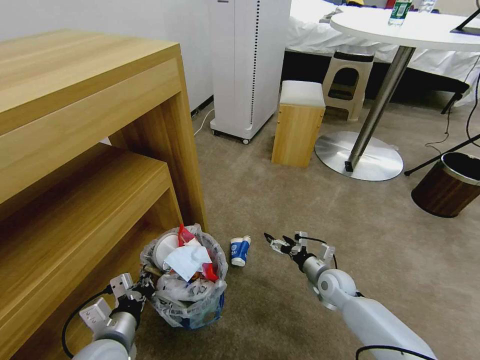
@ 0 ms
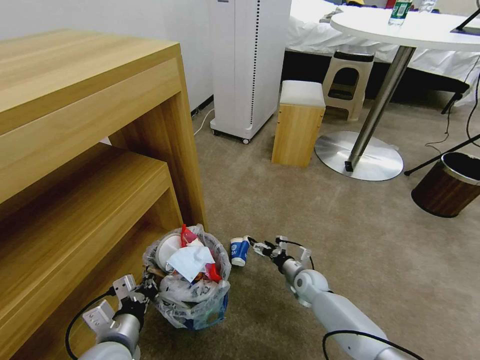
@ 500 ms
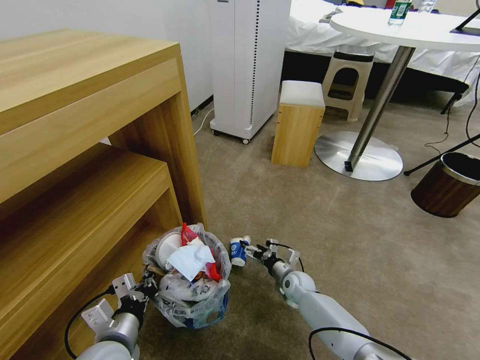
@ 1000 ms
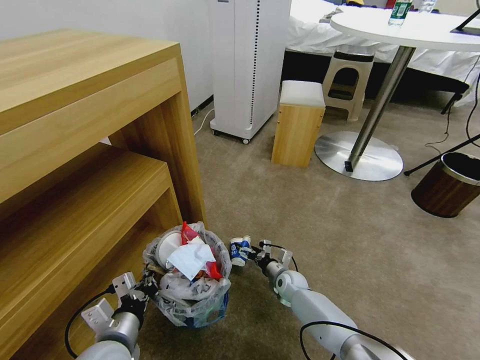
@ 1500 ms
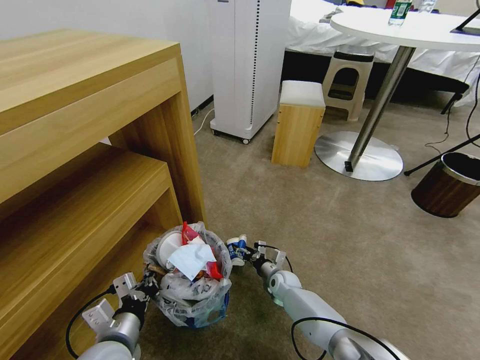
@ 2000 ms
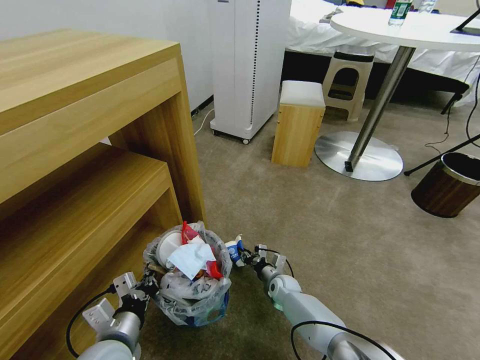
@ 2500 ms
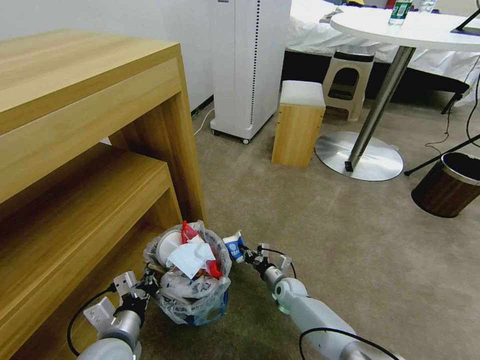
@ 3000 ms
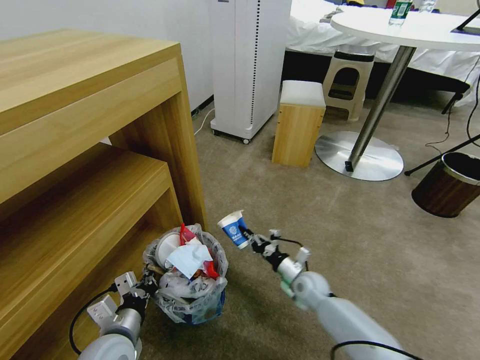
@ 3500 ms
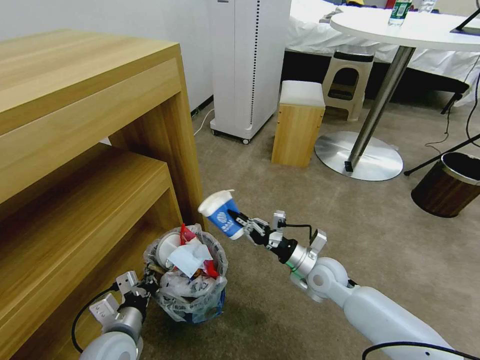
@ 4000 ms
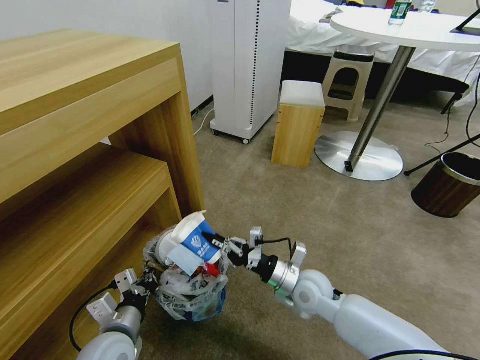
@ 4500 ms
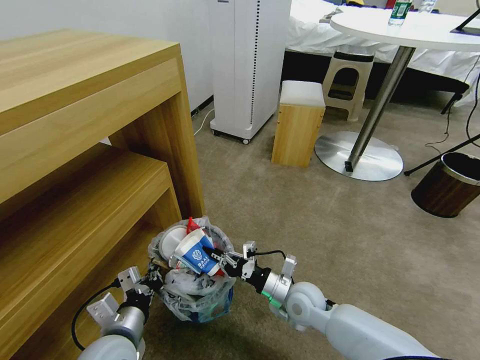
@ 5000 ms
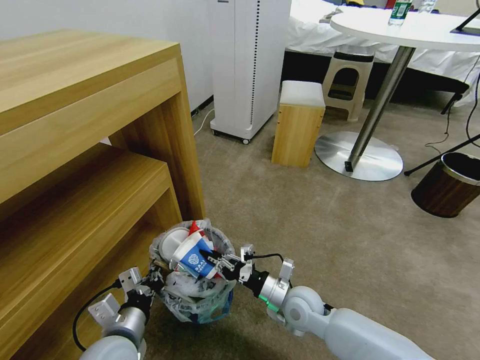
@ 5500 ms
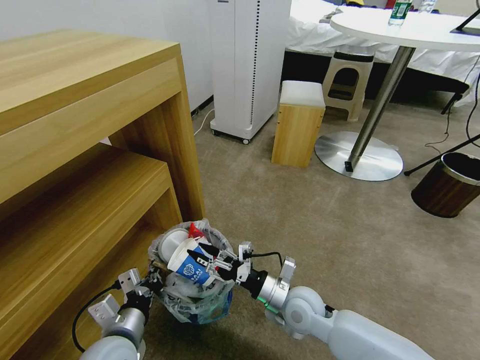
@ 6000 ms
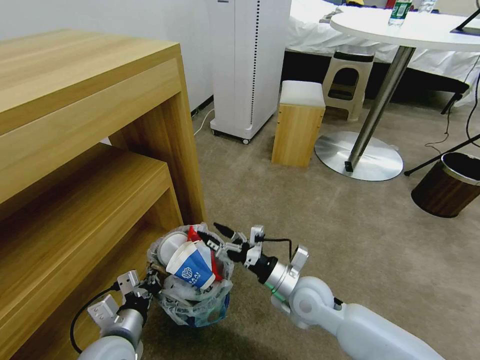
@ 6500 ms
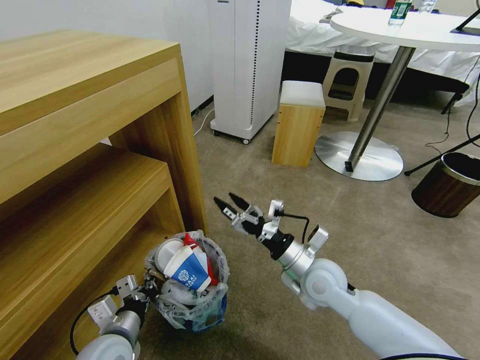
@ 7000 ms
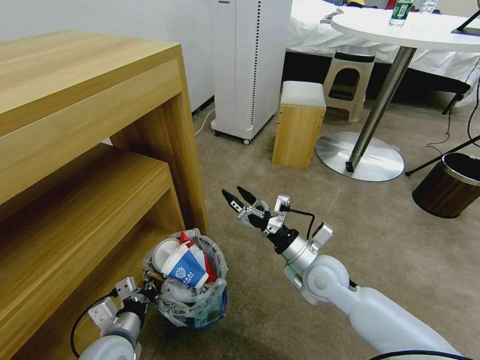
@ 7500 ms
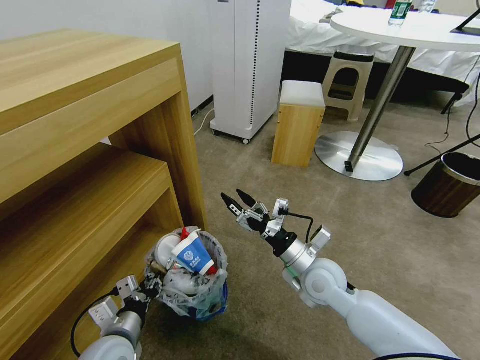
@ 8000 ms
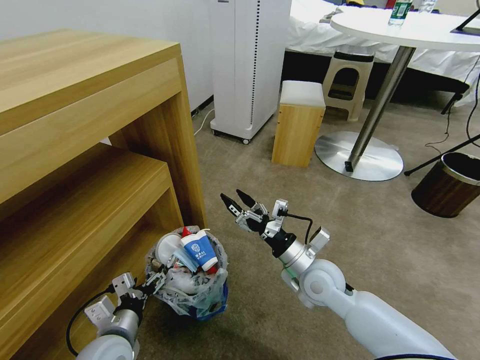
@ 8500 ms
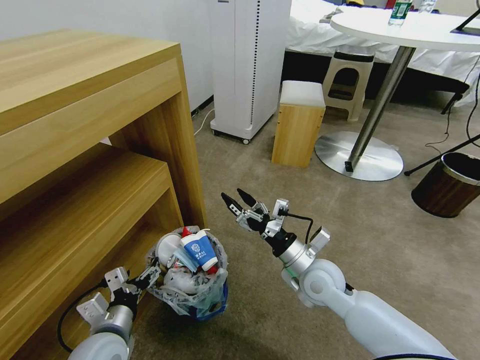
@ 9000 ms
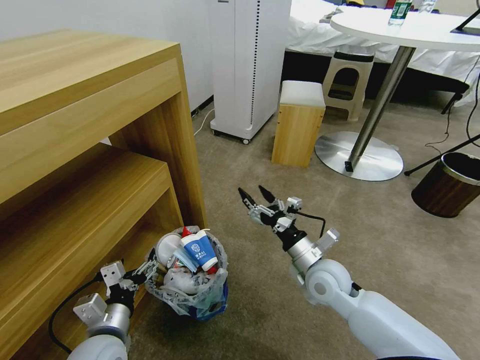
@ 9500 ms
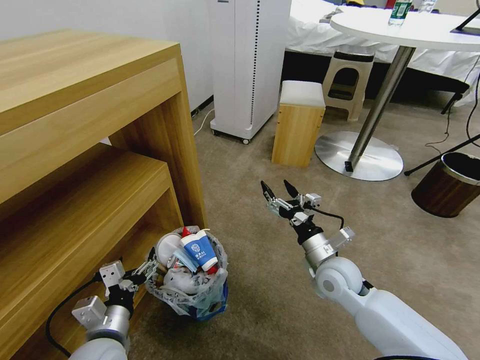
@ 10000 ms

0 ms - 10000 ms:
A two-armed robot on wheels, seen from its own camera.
Task of the whole recording: Pick up the trash bin and place the garbage on the floor into it.
0 ms - 2000 ms: The right gripper shifts about 15 cm to the left and downward.
2000 ms - 4000 ms: The right gripper travels upward by approximately 20 cm, and closes its fingers.
4000 ms - 6000 ms: The right gripper travels to the left and backward by approximately 10 cm, and opens up.
6000 ms - 8000 ms: The left gripper opens, while the right gripper is displaced upward by approximately 5 cm.
8000 ms - 10000 ms: The left gripper opens its fingers.

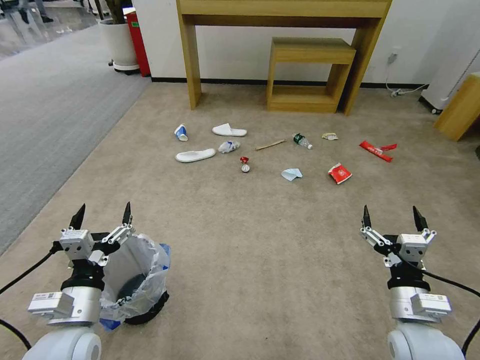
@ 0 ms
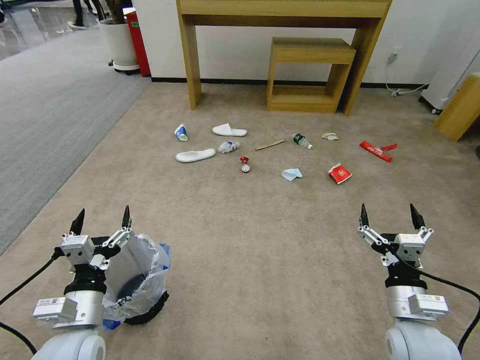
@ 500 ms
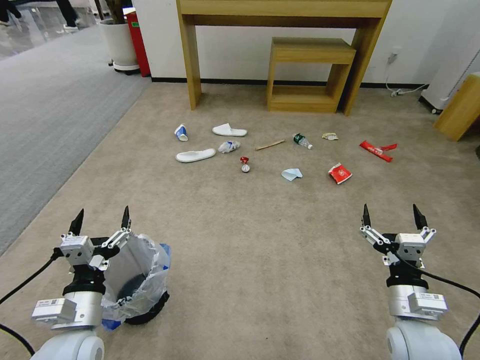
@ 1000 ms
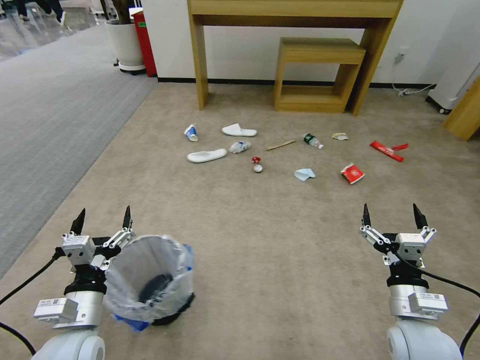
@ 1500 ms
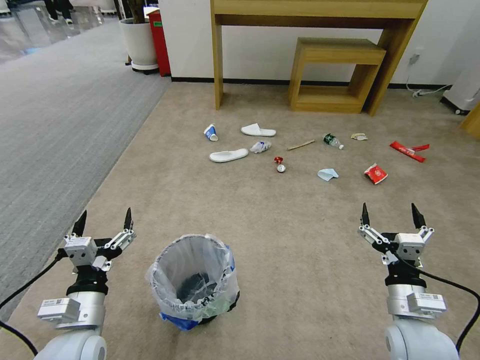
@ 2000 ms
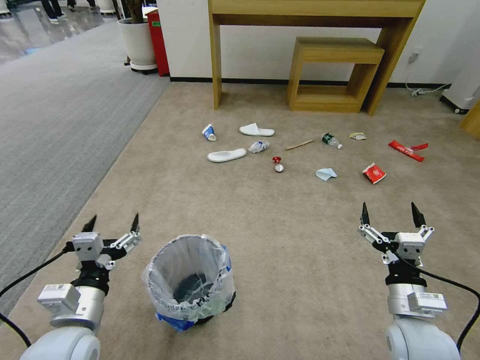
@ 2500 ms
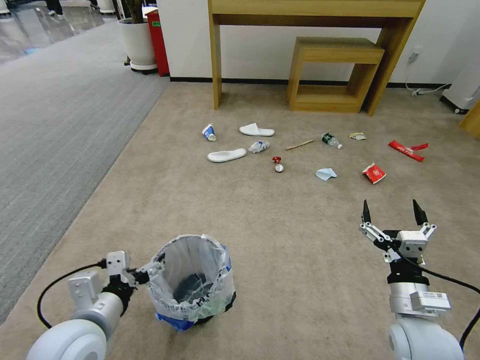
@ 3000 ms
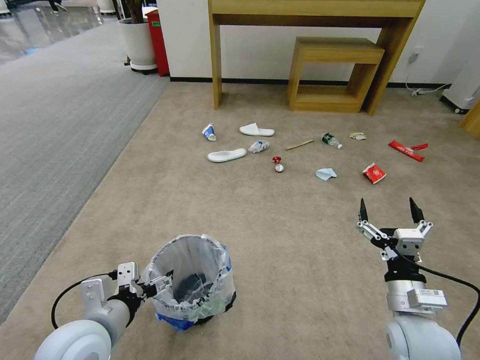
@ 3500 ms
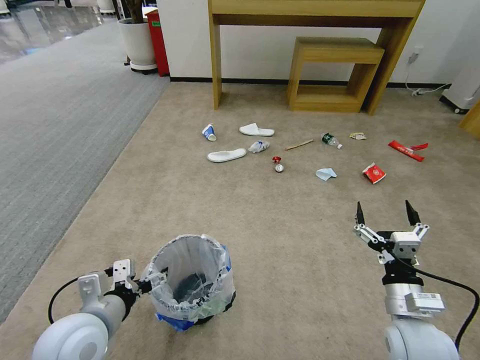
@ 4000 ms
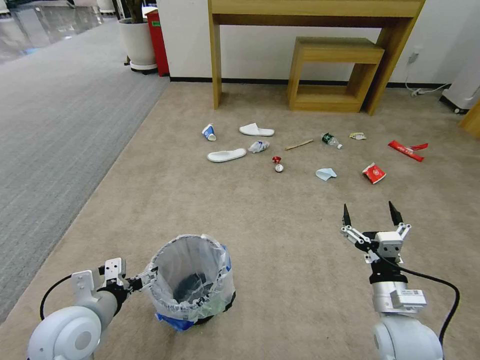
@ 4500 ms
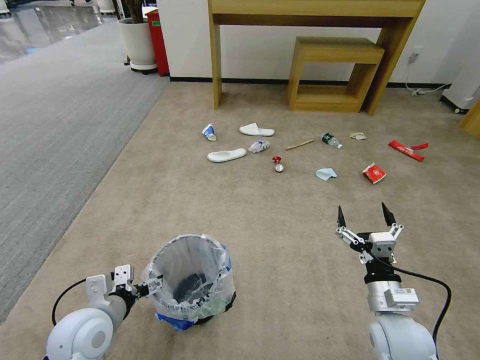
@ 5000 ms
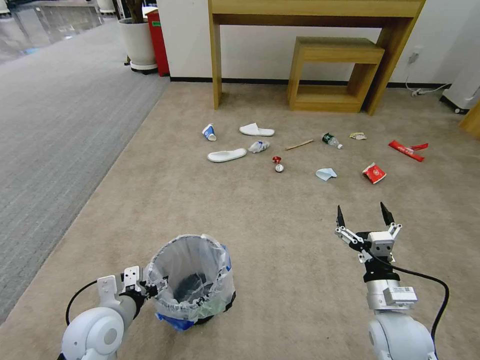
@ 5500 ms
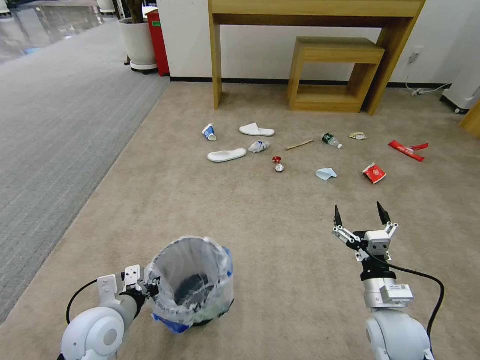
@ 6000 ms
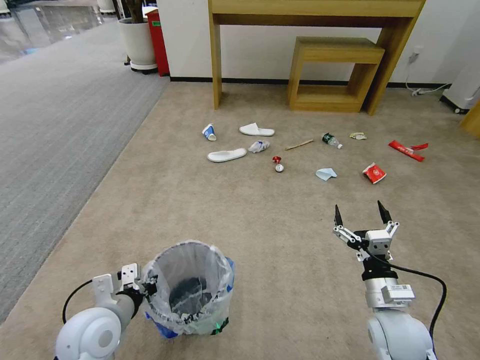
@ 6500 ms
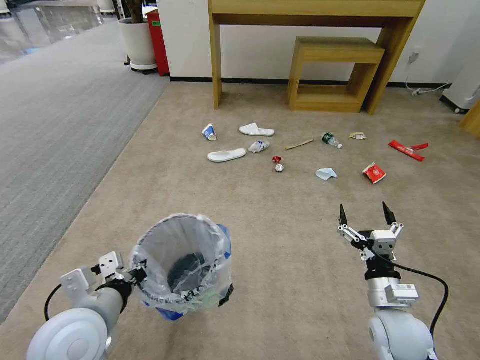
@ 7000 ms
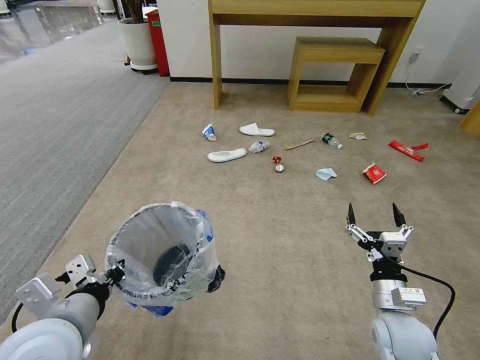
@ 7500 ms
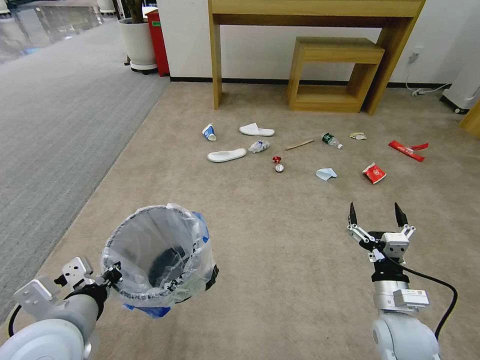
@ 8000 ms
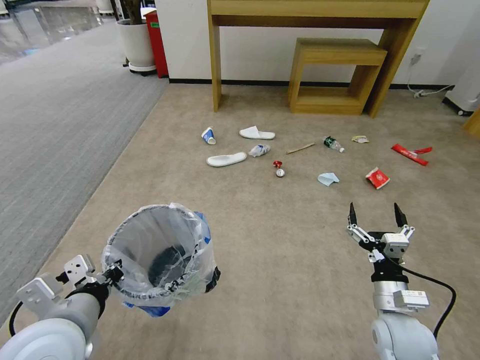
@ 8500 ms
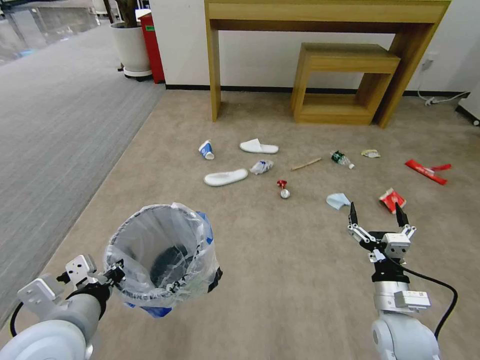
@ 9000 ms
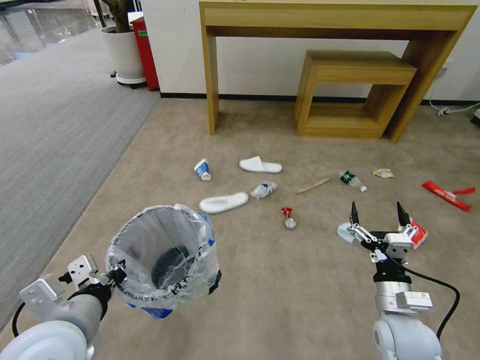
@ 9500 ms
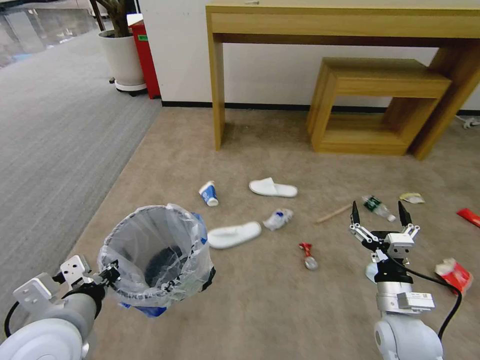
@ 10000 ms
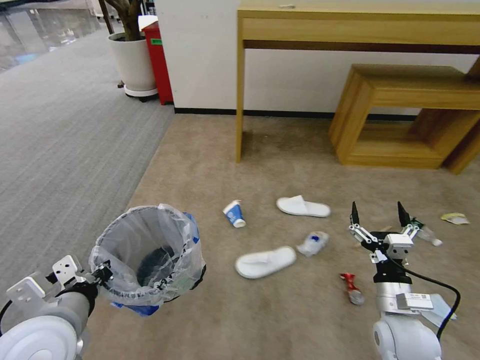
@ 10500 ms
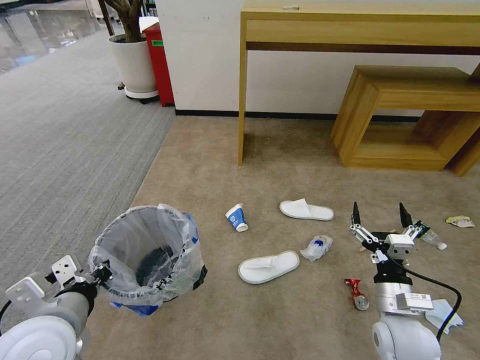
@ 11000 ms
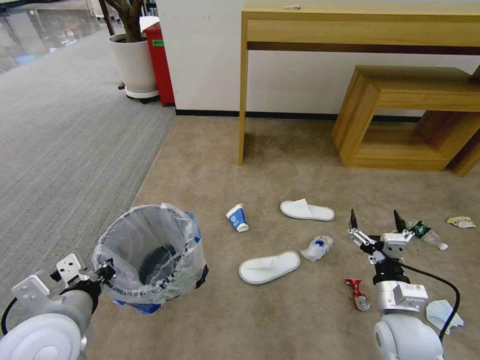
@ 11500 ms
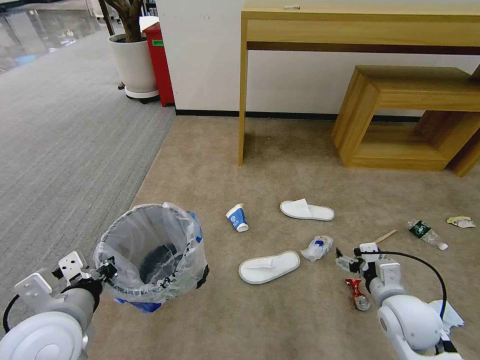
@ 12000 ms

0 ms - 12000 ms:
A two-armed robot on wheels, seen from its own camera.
Task of the whole recording: Pick up the trash bin and place the garbage on the floor into it.
4000 ms - 6000 ms: The left gripper goes approximately 5 cm downward, and closes its fingers.
6000 ms - 8000 ms: The left gripper travels upward and backward by approximately 15 cm.

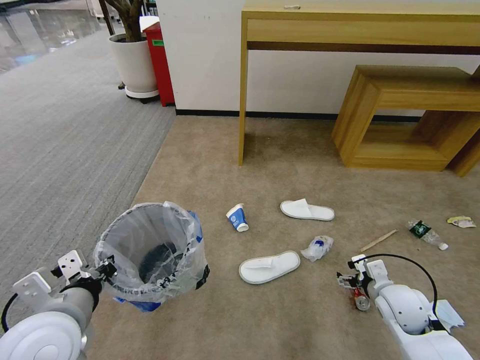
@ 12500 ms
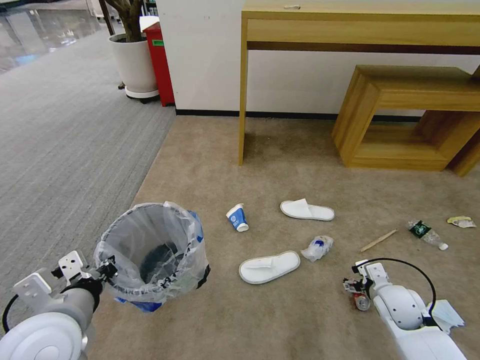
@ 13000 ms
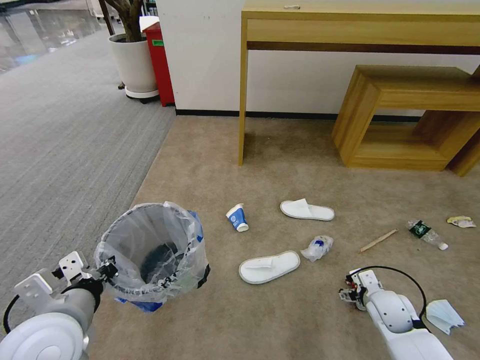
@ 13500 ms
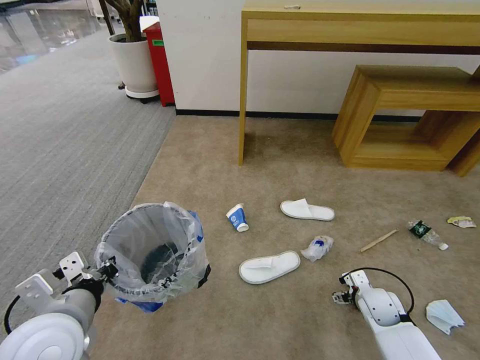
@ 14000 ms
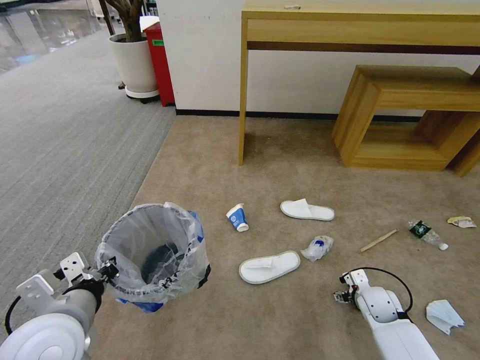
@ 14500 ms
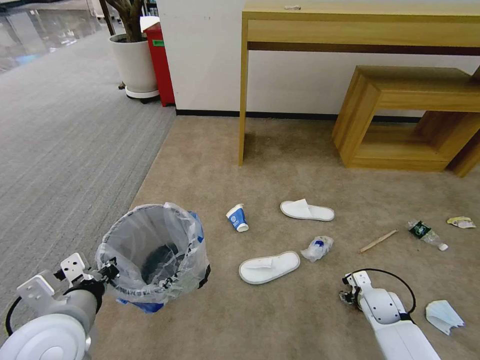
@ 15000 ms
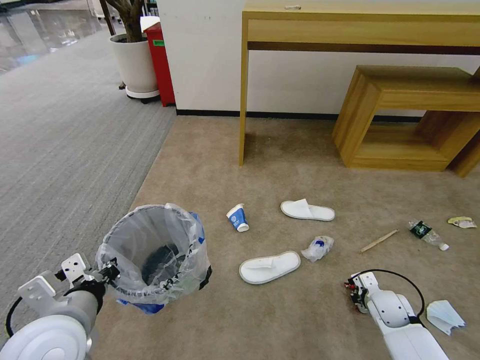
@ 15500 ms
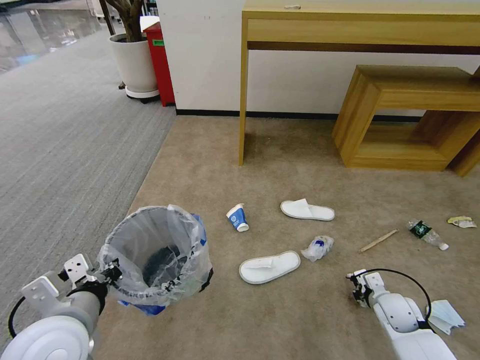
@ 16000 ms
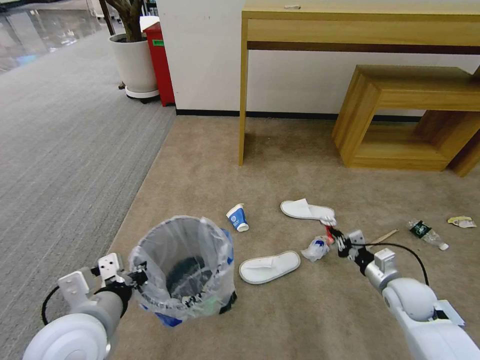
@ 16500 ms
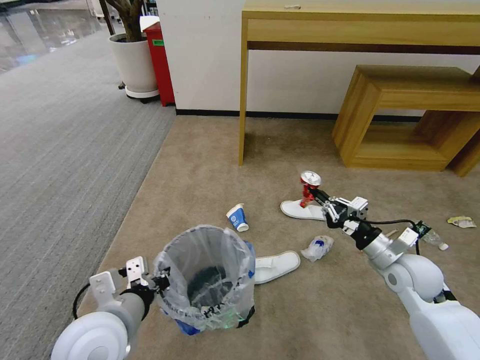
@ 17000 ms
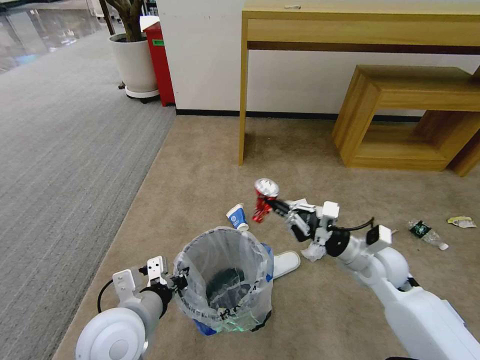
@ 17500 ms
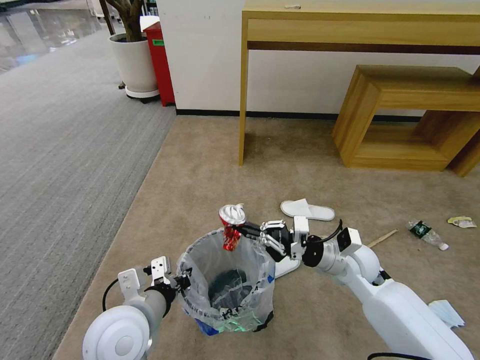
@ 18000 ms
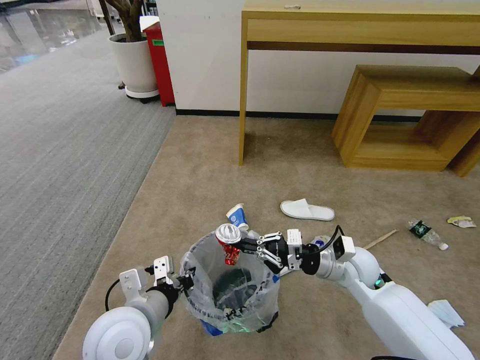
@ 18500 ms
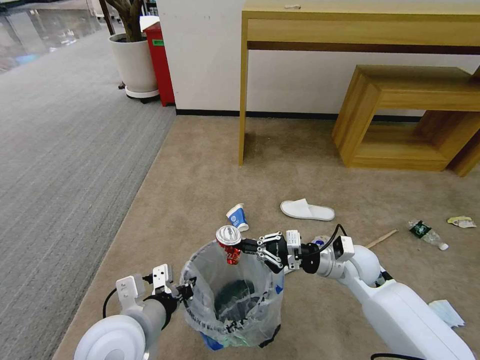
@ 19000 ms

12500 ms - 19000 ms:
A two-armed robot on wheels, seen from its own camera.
Task of the whole recording: Pick up the trash bin and place the garbage on the floor into it.
12500 ms - 14500 ms: The right gripper shifts approximately 10 cm downward.
14500 ms - 17000 ms: The left gripper goes approximately 5 cm to the right. The right gripper moves upward, approximately 20 cm, and closes its fingers.
17000 ms - 19000 ms: The right gripper is displaced to the left by roughly 10 cm.
